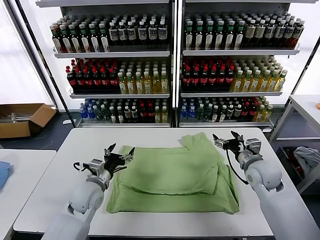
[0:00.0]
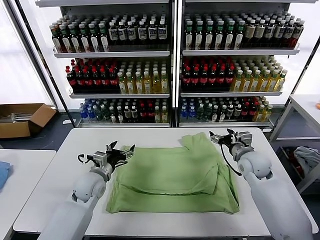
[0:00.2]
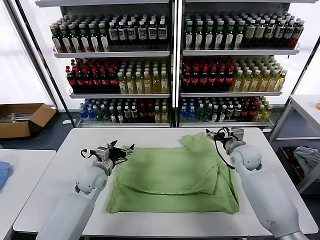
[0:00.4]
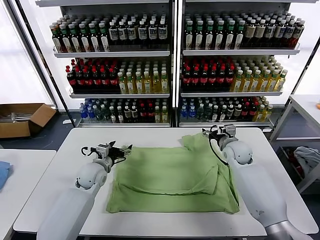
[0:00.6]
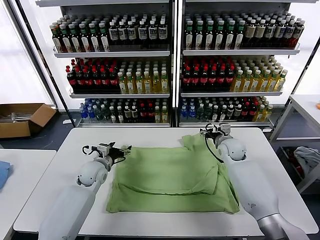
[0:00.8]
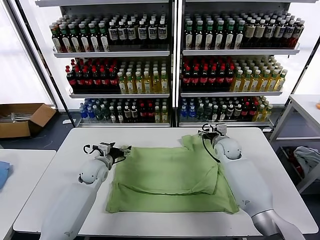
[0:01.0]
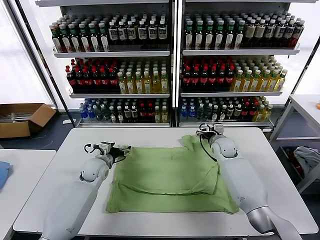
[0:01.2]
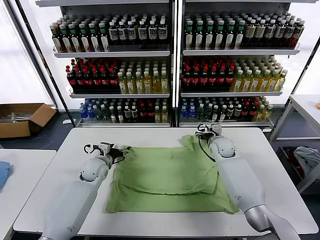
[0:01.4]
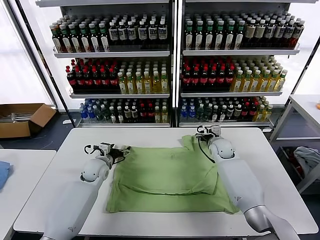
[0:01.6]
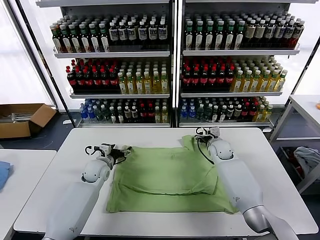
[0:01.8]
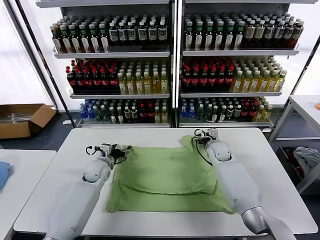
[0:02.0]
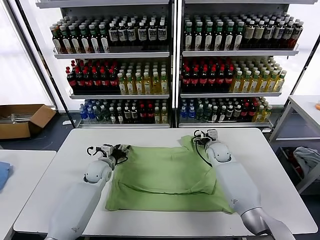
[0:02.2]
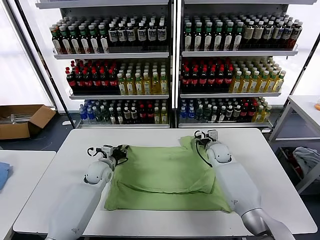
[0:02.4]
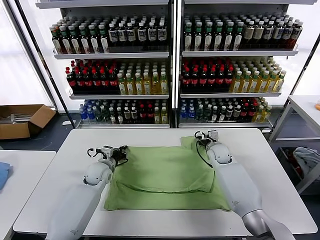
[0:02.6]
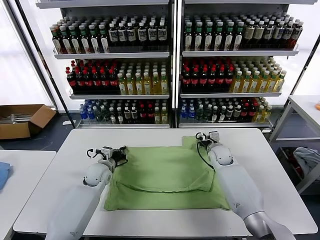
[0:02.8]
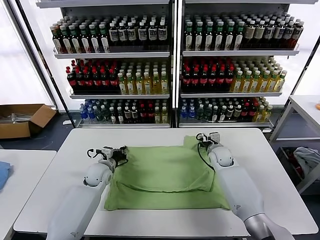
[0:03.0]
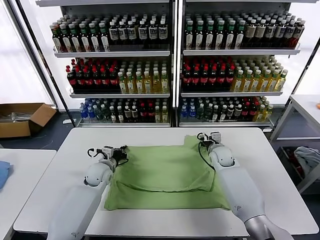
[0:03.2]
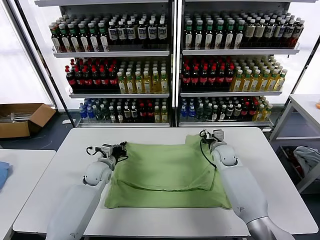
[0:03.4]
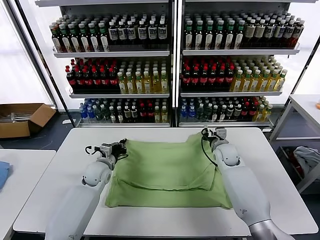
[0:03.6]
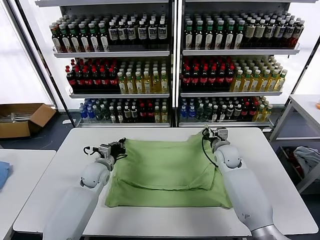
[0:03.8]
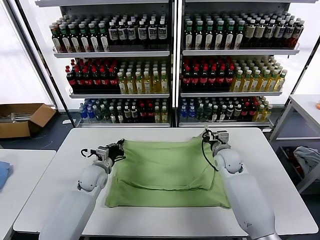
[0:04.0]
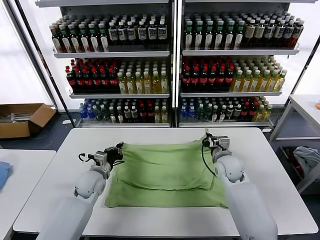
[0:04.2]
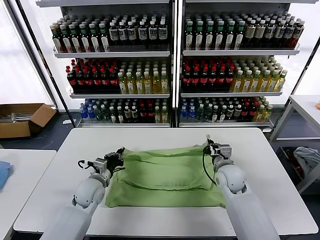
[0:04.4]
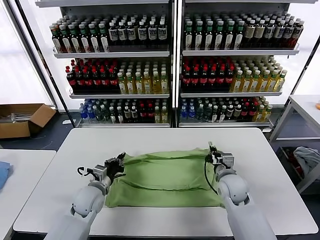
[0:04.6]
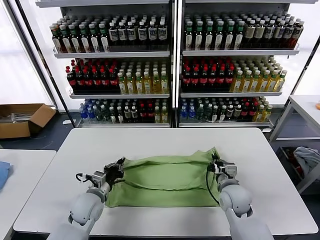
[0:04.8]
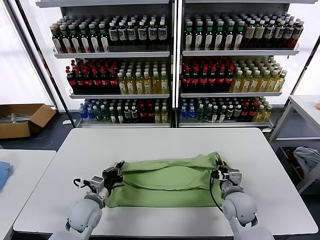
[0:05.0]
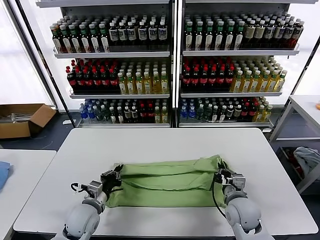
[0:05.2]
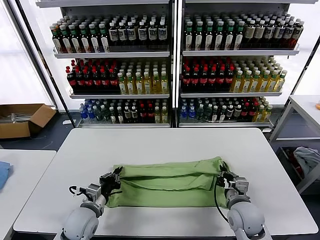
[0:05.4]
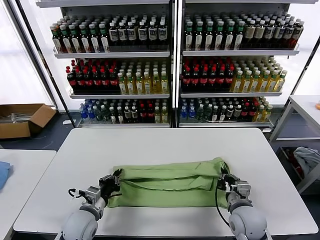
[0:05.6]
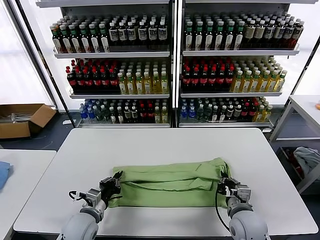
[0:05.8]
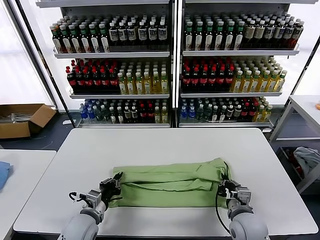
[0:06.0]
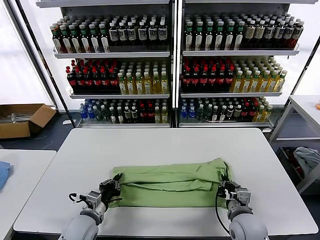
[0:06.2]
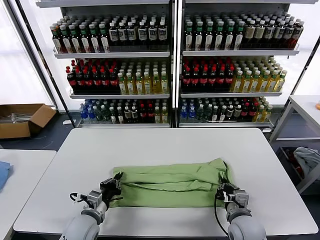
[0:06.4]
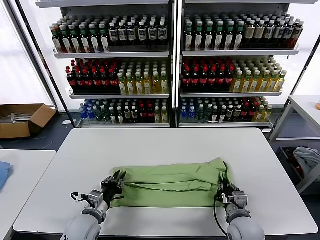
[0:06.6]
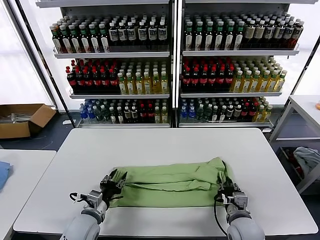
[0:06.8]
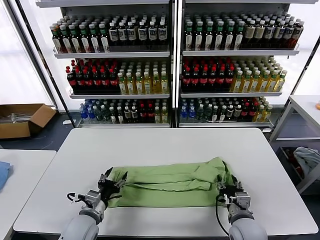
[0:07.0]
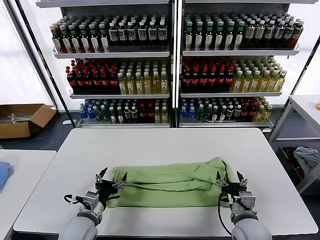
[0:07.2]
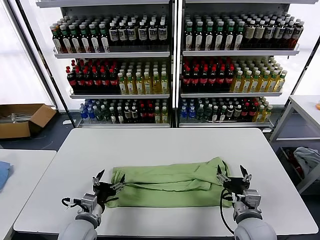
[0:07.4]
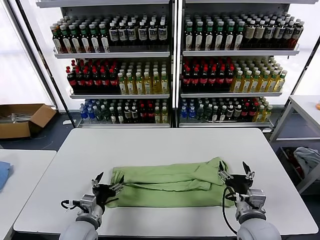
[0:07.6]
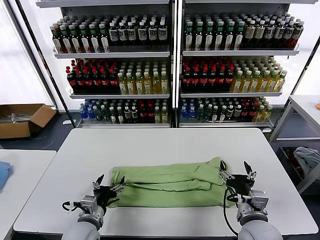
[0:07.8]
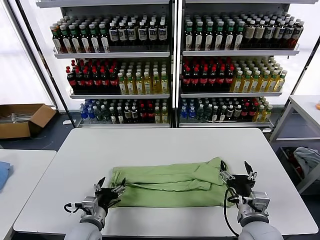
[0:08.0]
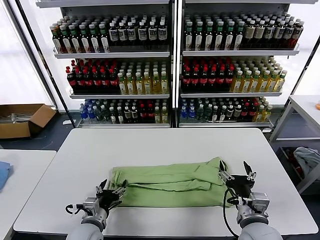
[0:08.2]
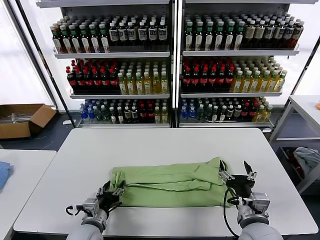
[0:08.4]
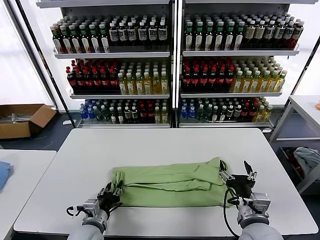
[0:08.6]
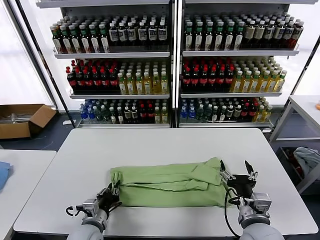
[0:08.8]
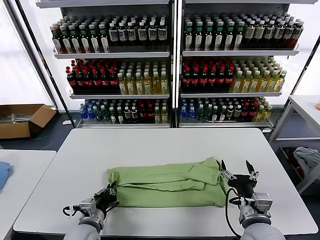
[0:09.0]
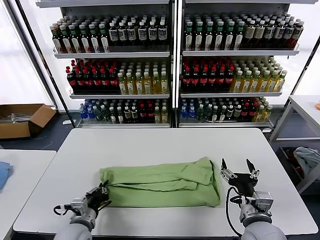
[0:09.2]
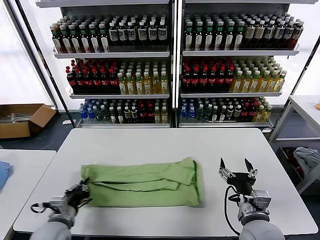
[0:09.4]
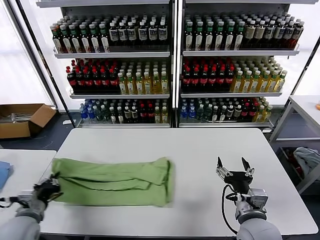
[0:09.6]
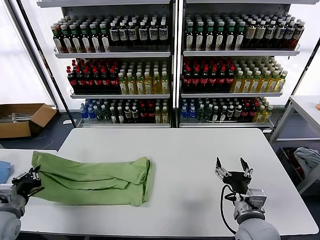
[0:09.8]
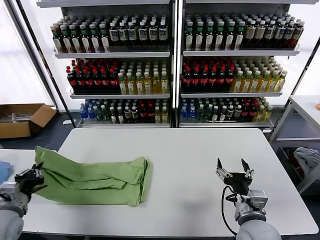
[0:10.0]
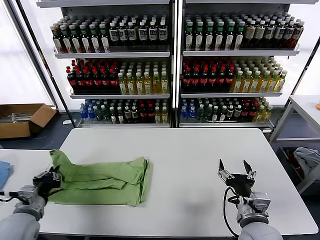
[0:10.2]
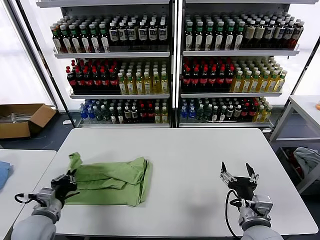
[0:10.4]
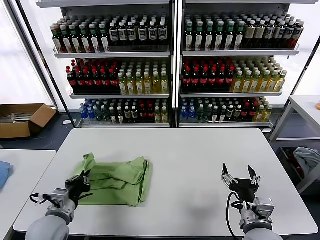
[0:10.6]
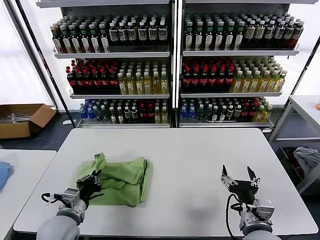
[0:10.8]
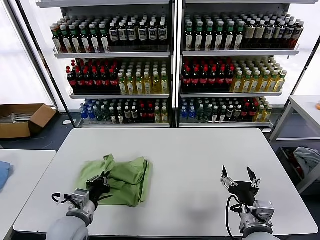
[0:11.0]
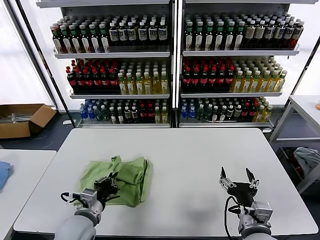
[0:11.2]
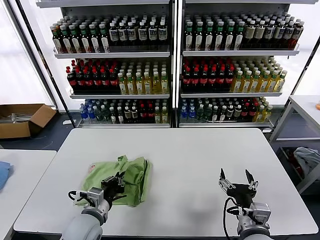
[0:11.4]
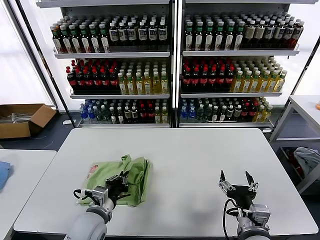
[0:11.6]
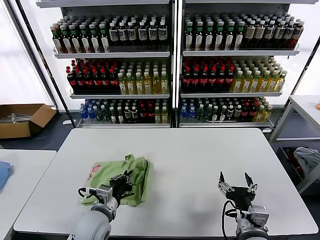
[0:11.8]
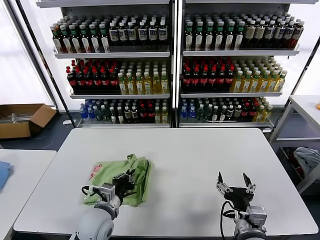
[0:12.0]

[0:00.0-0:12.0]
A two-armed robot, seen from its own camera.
Task of the whole recording: fold and organize the clothes.
Step, 0:00.0 to 0:03.0: use both grippers simultaneously to clamp the upper edge of the clothing fabric.
Step, 0:03.2 to 0:07.0: use both grippers to drag the upper edge of the fabric backward and fold it over the lower edge.
Step, 0:07.2 to 0:08.8: use the left gripper to clamp the left edge of the fabric.
0:00.0 to 0:01.6: The right gripper shifts some 15 cm forward, to the left and downward; the left gripper heads forward, covering some 15 cm.
0:01.6 to 0:03.0: The right gripper closes up, while the left gripper closes up.
0:03.0 to 0:04.4: The right gripper is displaced backward by about 10 cm; the left gripper shifts approximately 5 cm backward.
0:04.4 to 0:06.0: Both grippers travel together backward, some 15 cm.
0:06.0 to 0:07.6: The left gripper opens up; the right gripper is displaced upward by roughly 5 cm, and opens up.
0:07.6 to 0:09.0: The left gripper closes its fingers.
0:09.0 to 0:10.4: The left gripper heads to the left and upward, covering some 15 cm.
0:10.4 to 0:12.0: The left gripper shifts about 15 cm to the right.

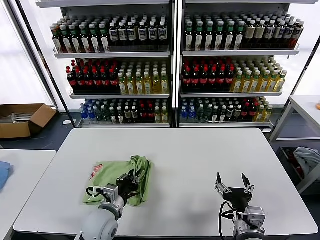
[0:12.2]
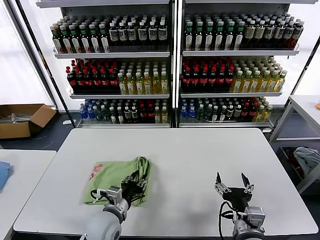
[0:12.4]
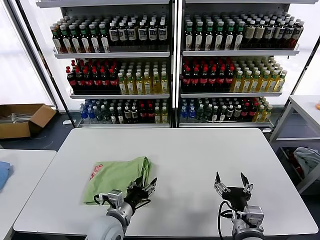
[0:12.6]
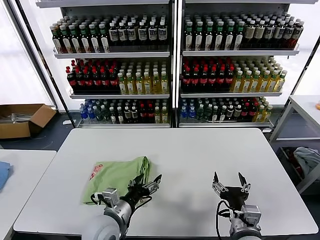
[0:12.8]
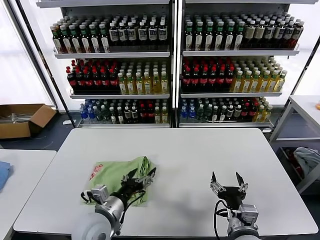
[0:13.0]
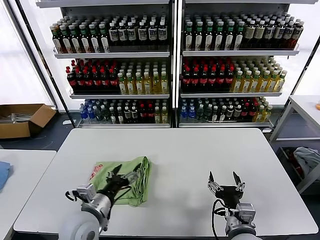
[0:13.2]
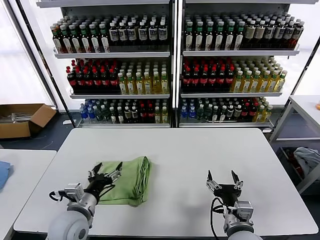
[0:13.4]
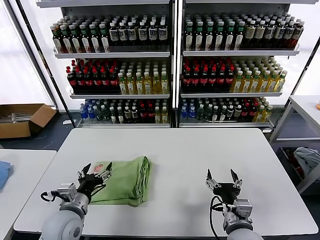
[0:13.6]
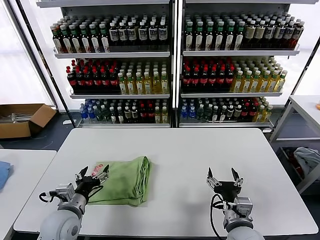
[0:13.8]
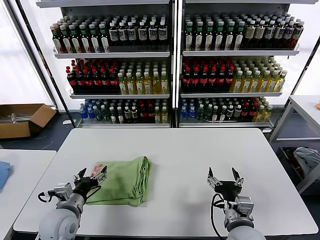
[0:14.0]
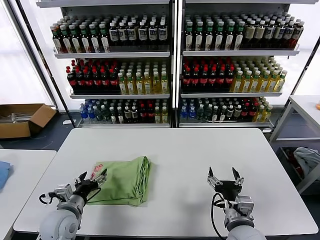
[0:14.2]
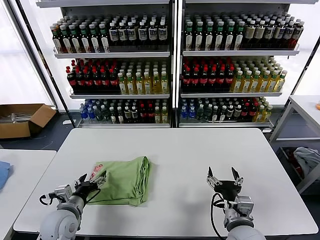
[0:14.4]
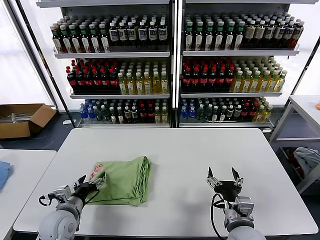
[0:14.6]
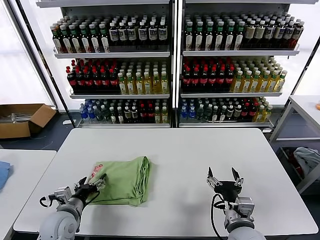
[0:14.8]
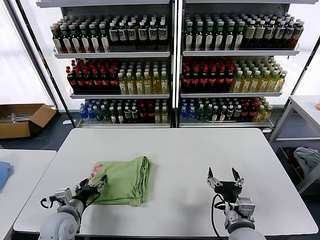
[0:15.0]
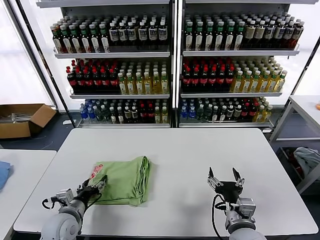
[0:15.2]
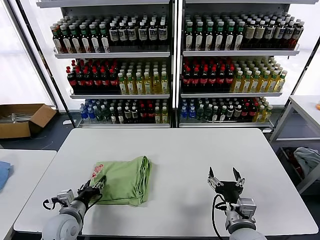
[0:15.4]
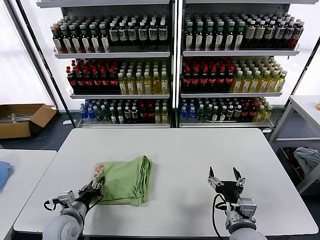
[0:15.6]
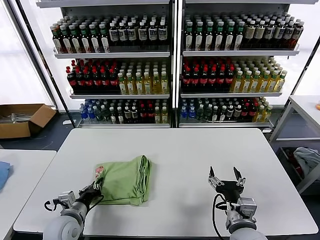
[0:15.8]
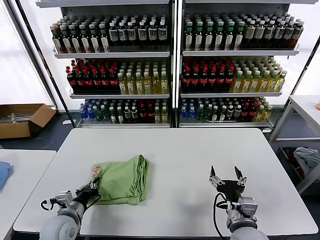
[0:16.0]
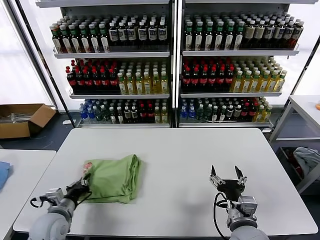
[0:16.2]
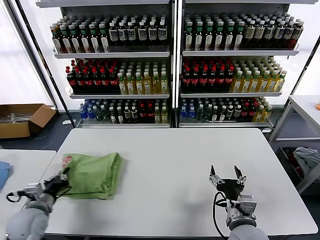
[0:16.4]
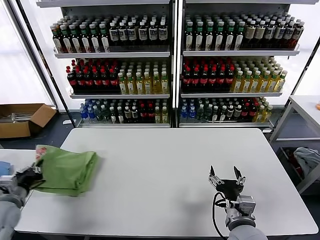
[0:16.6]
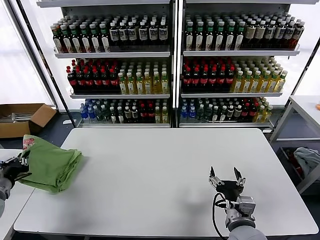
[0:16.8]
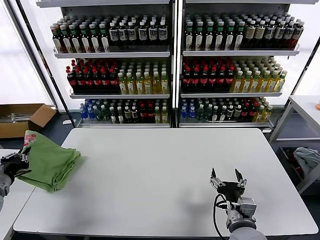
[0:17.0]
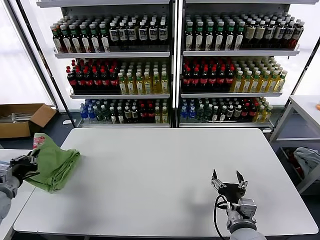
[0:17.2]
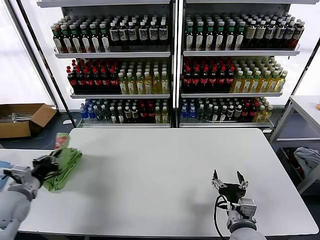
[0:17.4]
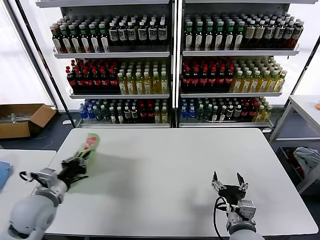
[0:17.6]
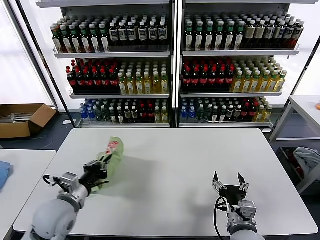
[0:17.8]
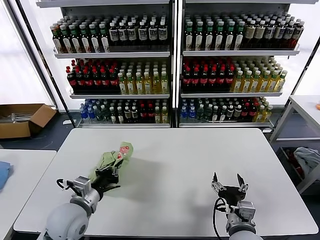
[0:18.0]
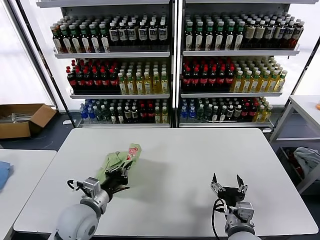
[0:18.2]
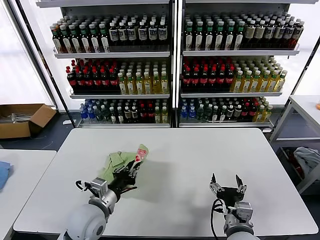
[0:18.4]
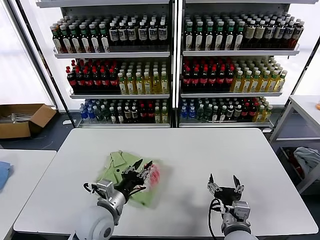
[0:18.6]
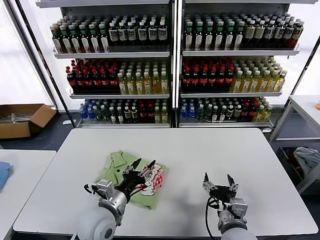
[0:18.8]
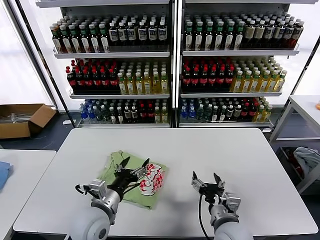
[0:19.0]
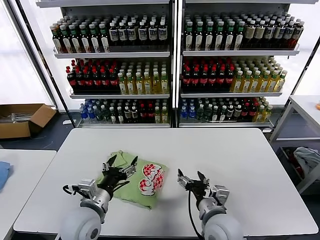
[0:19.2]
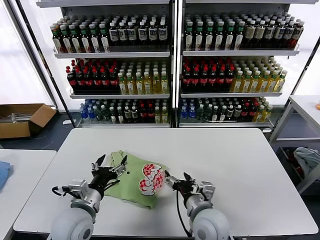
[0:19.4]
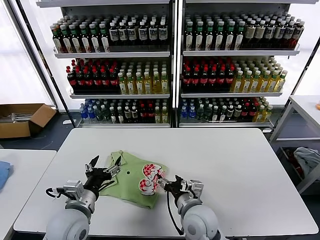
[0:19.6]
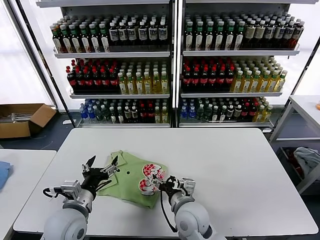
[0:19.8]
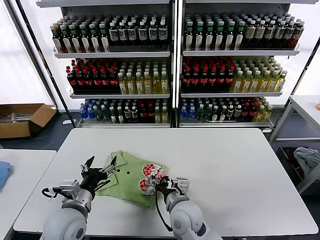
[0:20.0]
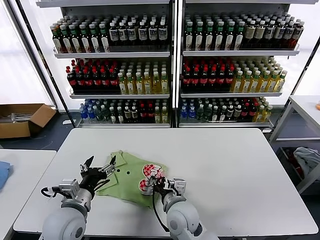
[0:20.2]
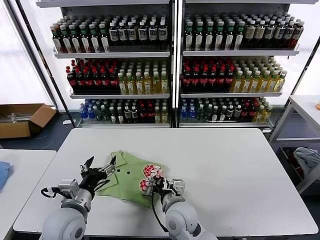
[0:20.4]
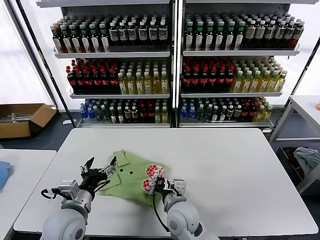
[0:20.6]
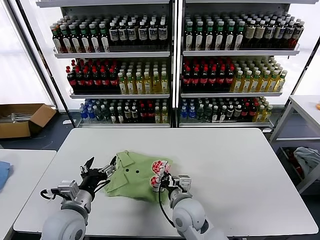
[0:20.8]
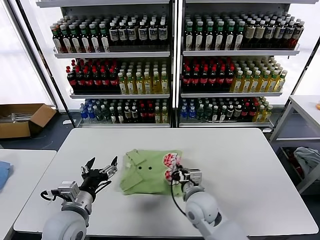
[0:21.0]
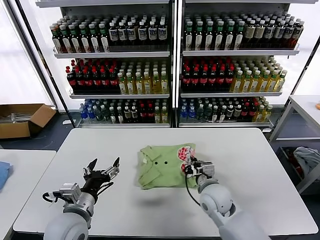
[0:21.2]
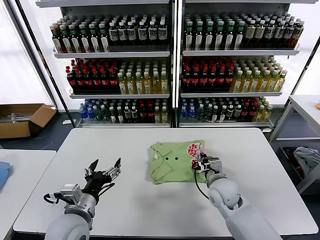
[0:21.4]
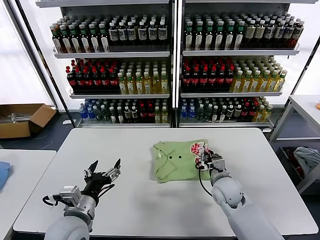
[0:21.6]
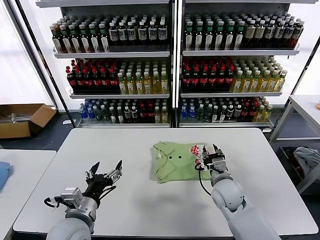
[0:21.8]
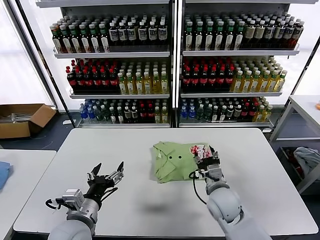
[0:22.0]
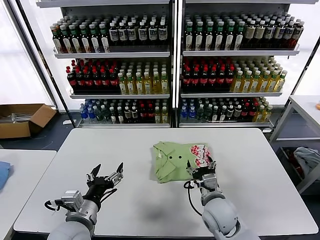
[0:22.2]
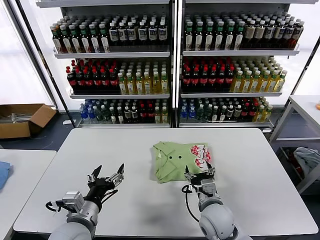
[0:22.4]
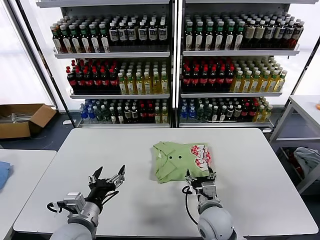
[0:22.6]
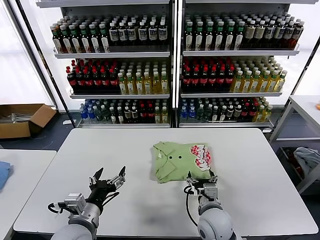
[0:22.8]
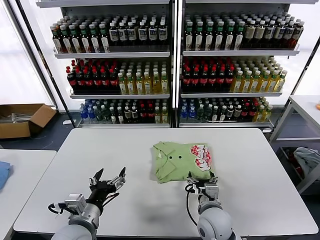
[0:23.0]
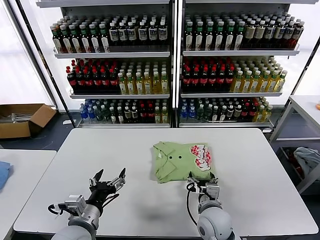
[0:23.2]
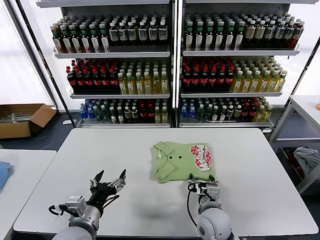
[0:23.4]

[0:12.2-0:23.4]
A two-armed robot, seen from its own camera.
Task of the whole recording: fold and organize the clothes.
Step, 0:12.8 to 0:18.6: Flip the folded clothes over with left gripper.
0:12.2 to 0:13.8: The left gripper heads to the left, covering roughly 10 cm, and opens up.
0:13.8 to 0:15.4: The left gripper heads downward, covering about 5 cm.
0:15.4 to 0:17.0: The left gripper heads to the left and upward, covering some 25 cm, and closes up.
0:17.0 to 0:18.6: The left gripper moves to the right, about 30 cm, and opens up.
0:18.6 to 0:20.2: The right gripper goes some 15 cm to the left and forward, and closes its fingers; the left gripper shifts approximately 5 cm to the left, and opens up.
0:20.2 to 0:21.8: The right gripper goes about 15 cm to the right and forward, and closes, then reopens.
0:21.8 to 0:23.4: The right gripper travels backward and to the left by roughly 10 cm, and opens up.
